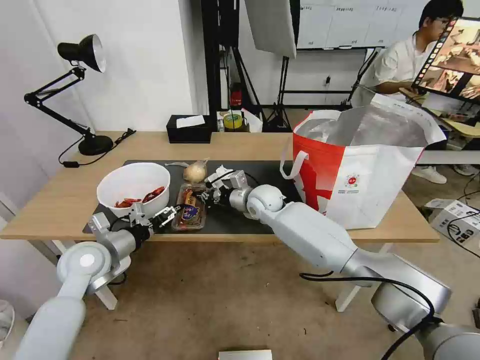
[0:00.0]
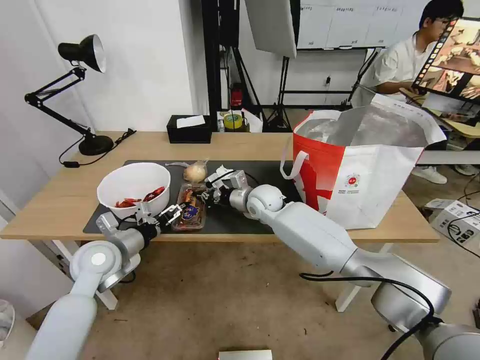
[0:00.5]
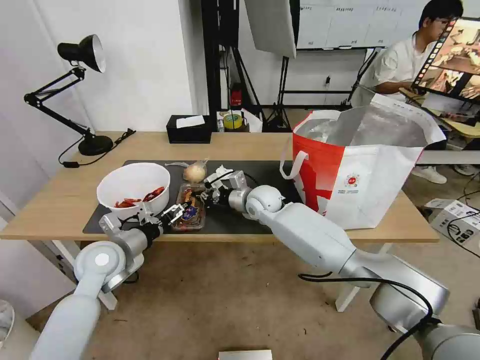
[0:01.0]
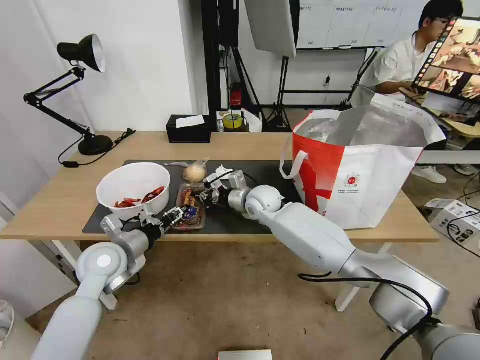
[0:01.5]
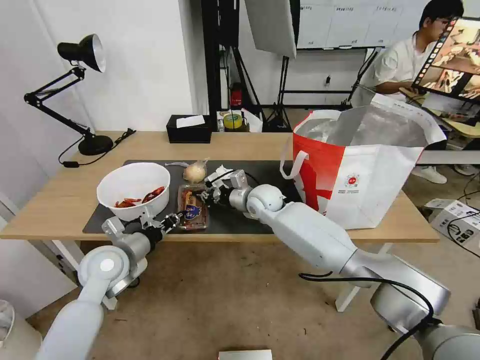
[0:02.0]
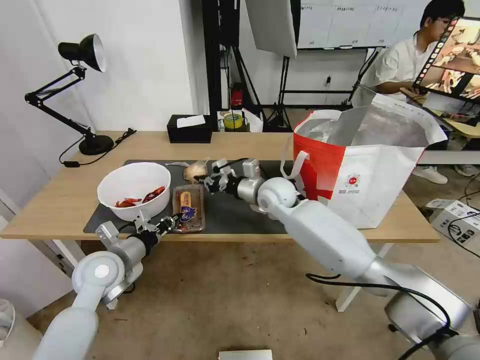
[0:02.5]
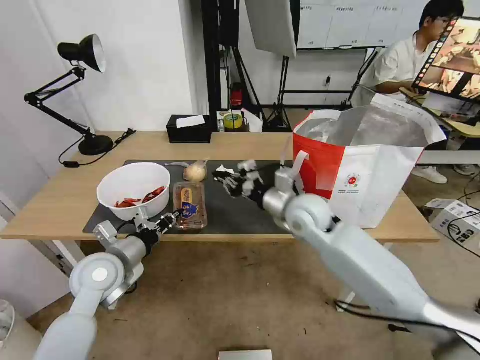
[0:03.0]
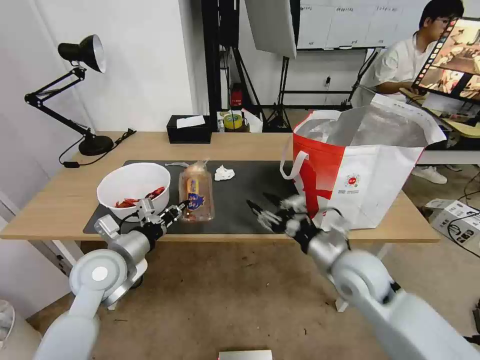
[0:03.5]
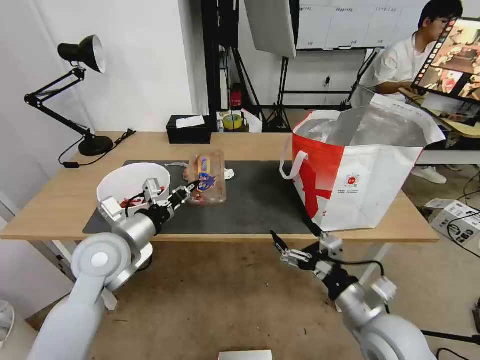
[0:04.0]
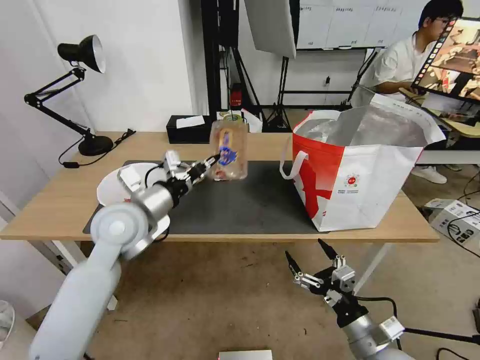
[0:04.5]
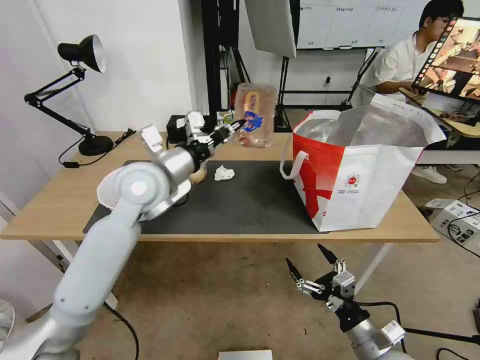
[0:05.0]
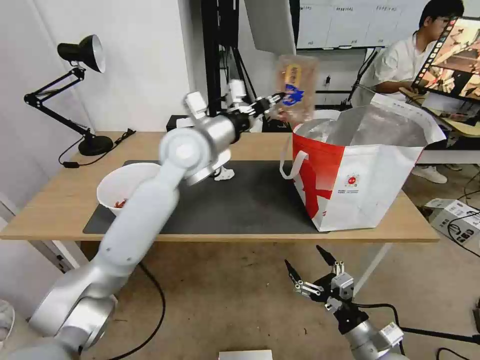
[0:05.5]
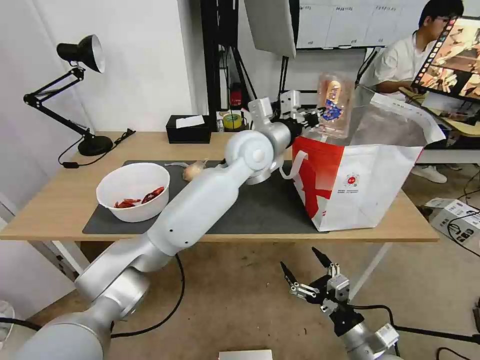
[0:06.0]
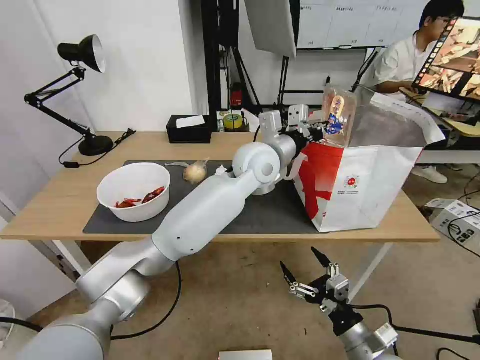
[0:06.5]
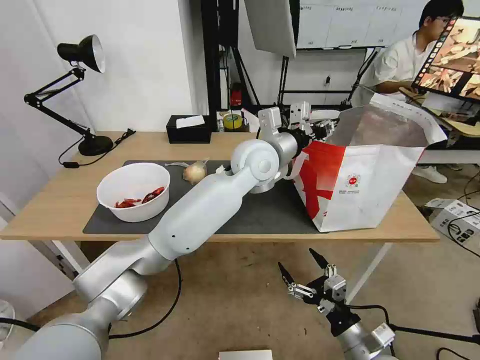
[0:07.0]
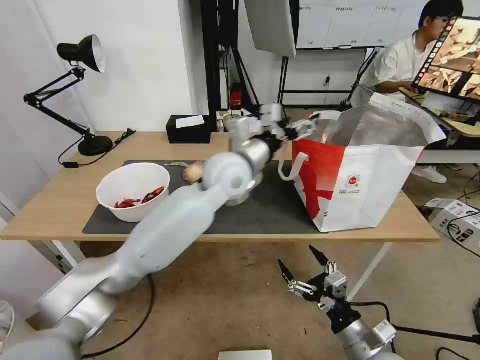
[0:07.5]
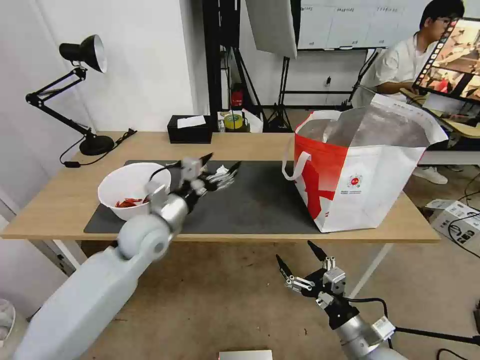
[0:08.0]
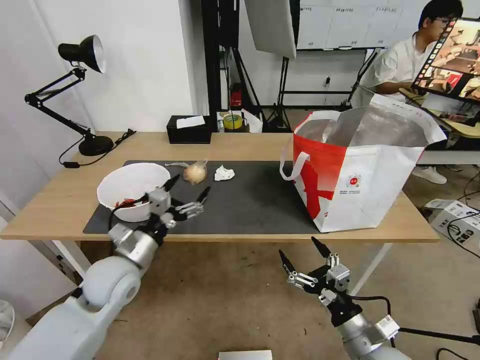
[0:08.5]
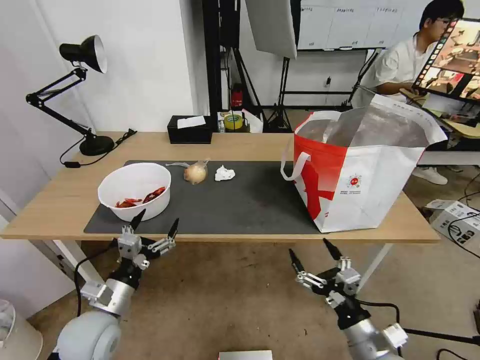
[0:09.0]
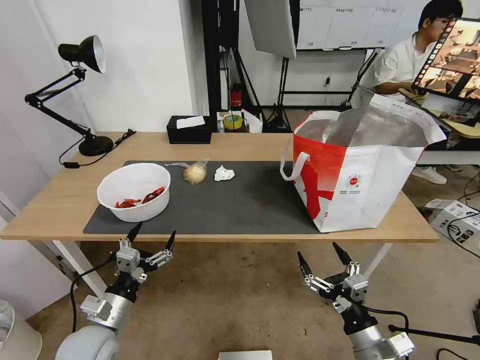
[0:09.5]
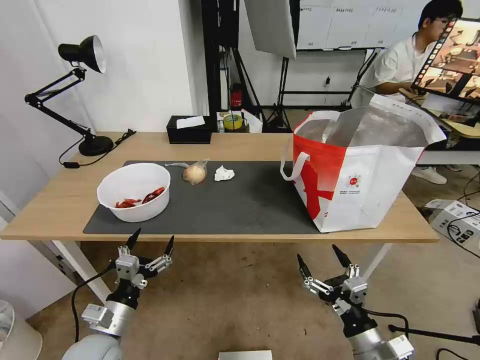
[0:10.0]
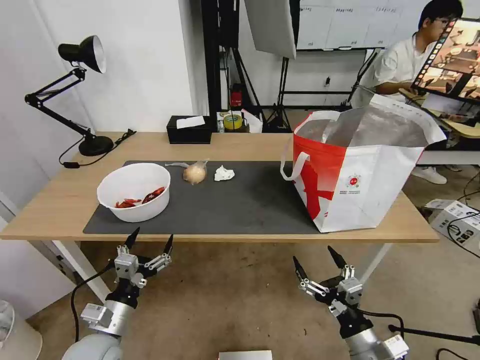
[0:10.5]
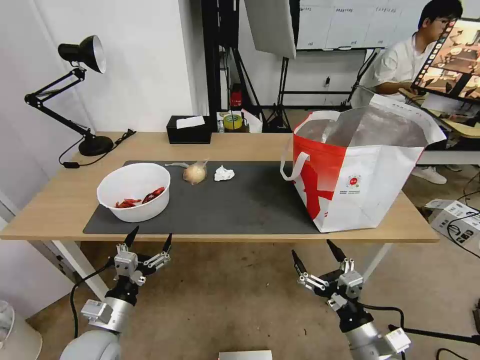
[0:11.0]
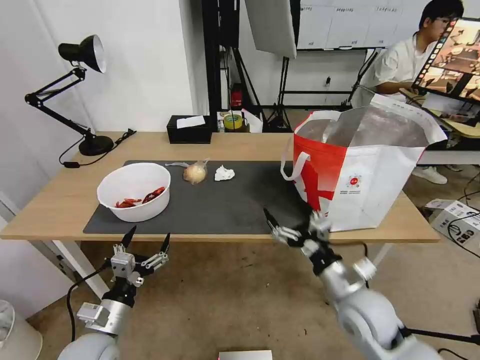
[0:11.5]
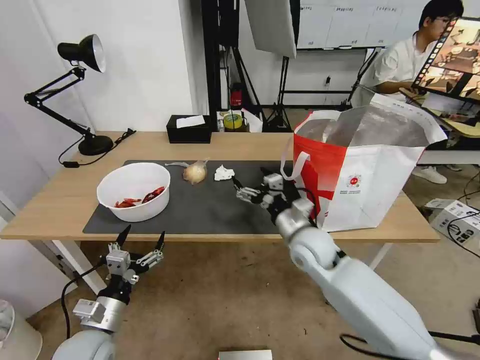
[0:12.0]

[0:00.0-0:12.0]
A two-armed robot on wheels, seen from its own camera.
Task of the whole recording: Pick up the trash from the table and place it into the takeout bag.
0:00.0 to 0:02.0: The left gripper closes.
0:02.0 to 0:04.0: The right gripper goes about 40 cm backward and to the right, and opens, while the left gripper is displaced upward by about 10 cm.
0:04.0 to 0:06.0: The right gripper heads downward, covering about 10 cm. Meanwhile the left gripper is displaced to the right, forward and upward by roughly 35 cm.
0:06.0 to 0:08.0: The left gripper is displaced to the left, downward and backward by roughly 30 cm, and opens up.
0:08.0 to 0:10.0: The left gripper goes about 25 cm backward, downward and to the left.
0:10.0 to 0:12.0: The right gripper heads forward and to the left, covering some 25 cm.

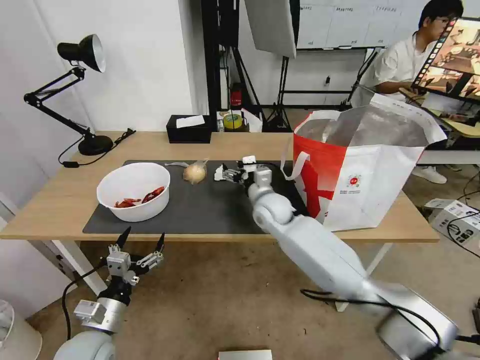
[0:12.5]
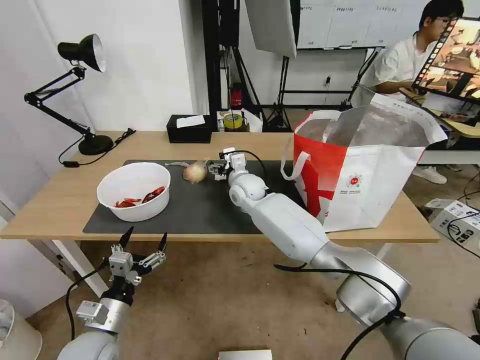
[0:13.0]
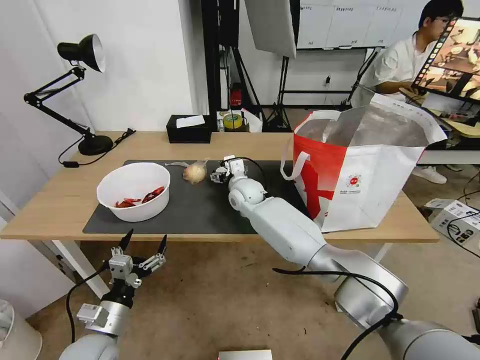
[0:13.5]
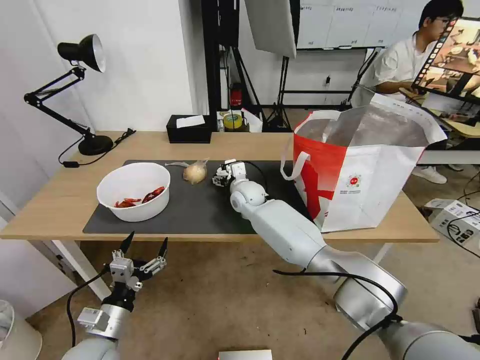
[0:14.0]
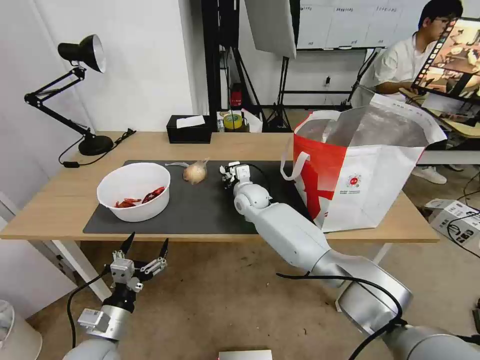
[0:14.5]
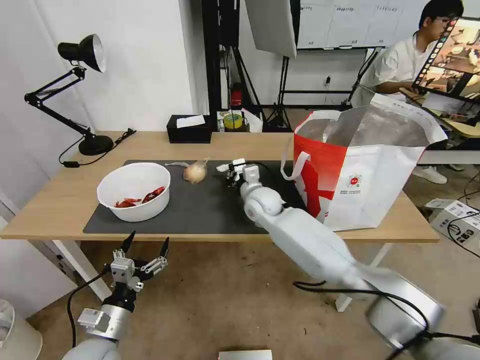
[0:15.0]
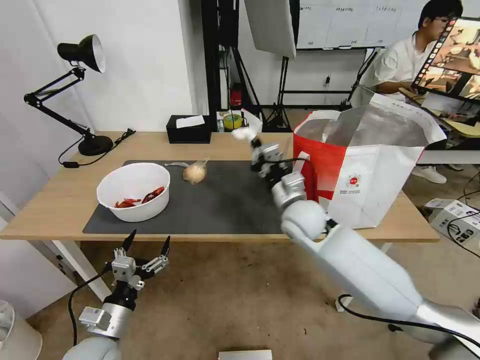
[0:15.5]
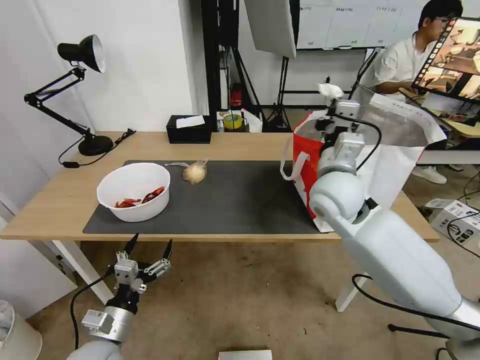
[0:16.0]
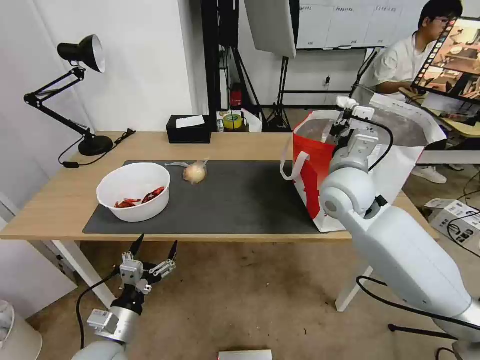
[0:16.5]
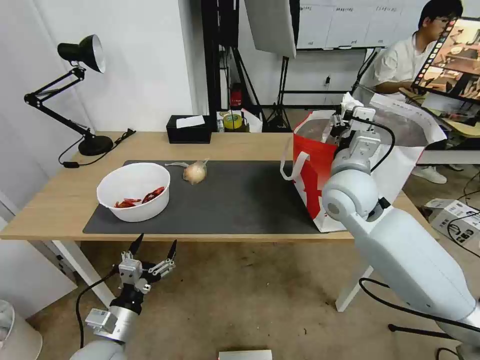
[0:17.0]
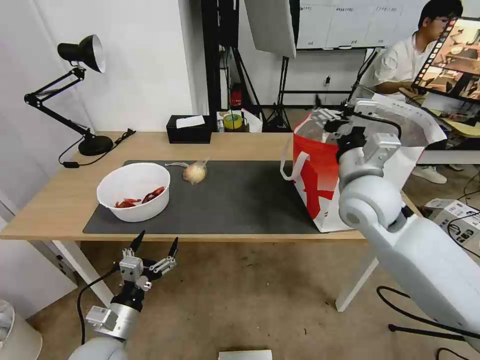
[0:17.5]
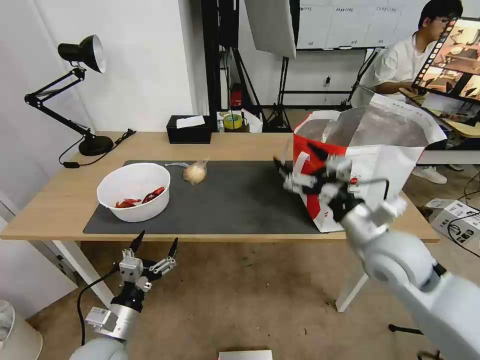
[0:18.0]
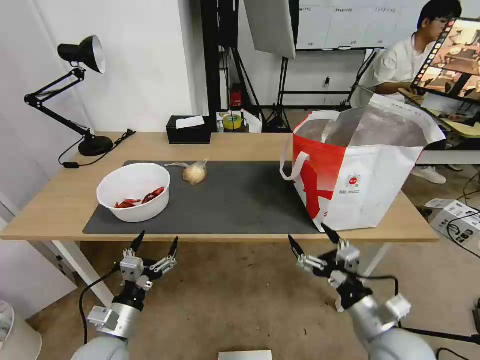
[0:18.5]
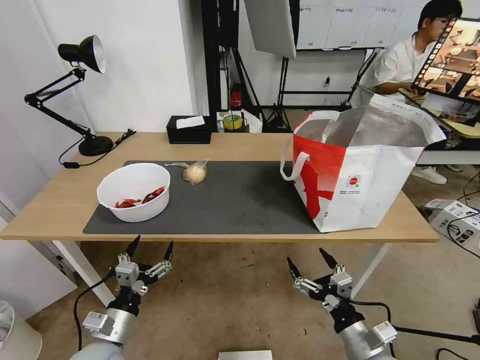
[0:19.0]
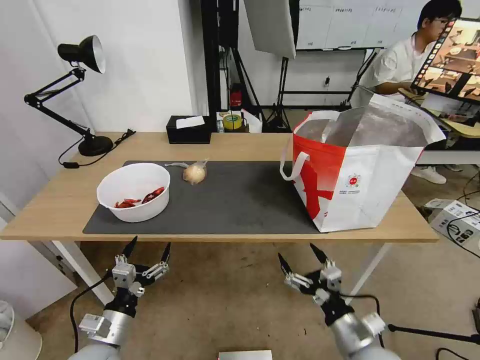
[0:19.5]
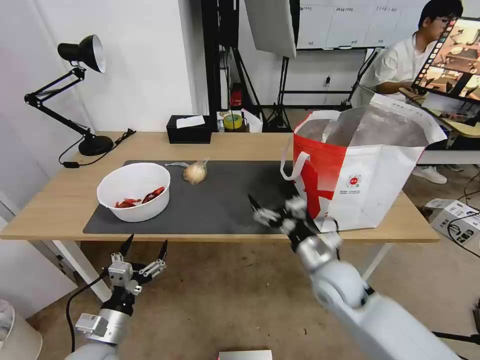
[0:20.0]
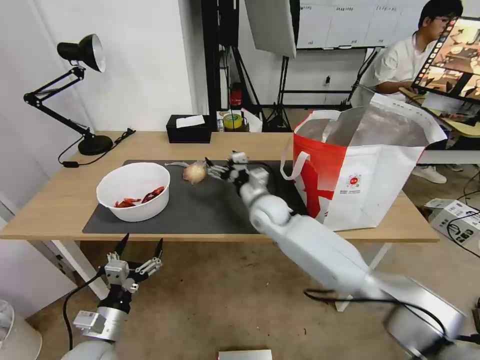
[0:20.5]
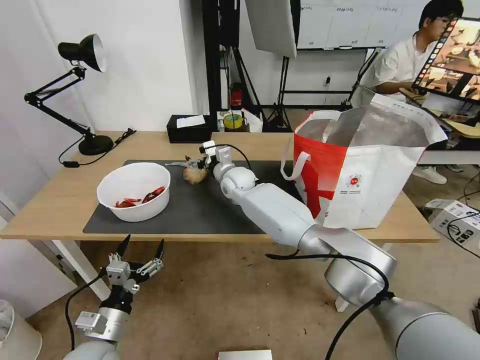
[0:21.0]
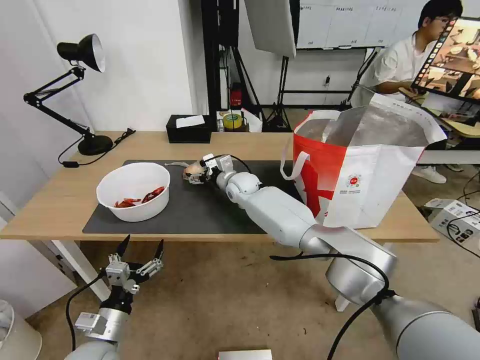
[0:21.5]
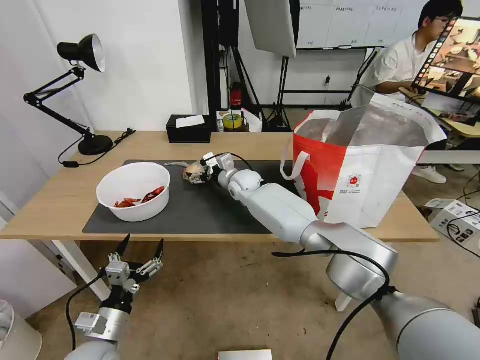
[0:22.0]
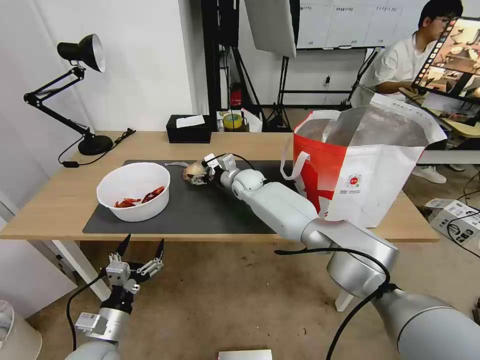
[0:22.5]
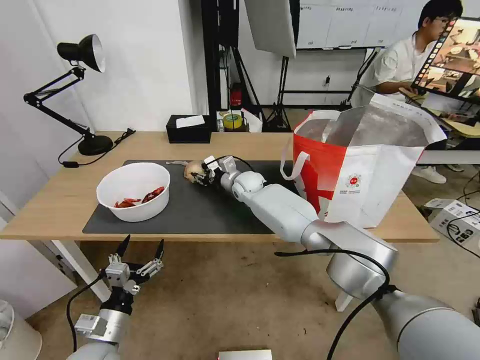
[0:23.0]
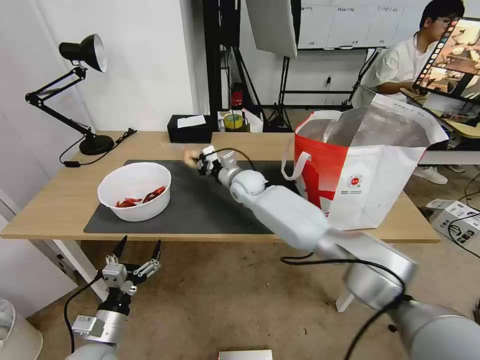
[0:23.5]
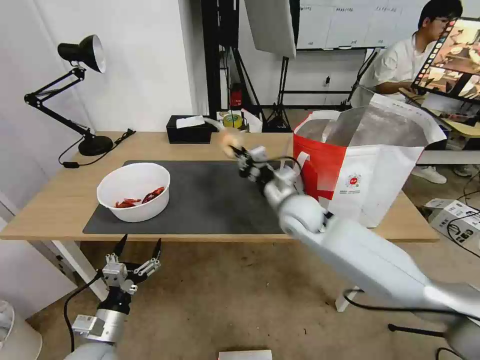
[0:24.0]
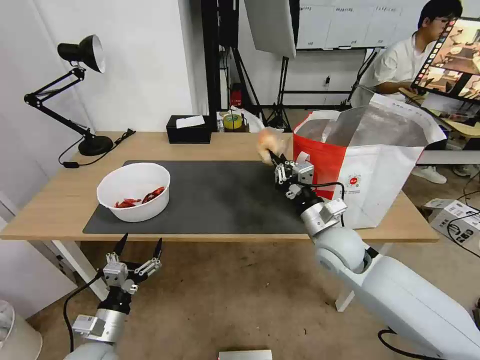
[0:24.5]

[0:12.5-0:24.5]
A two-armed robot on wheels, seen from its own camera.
Task of the whole recording: Pick up the trash from the table and place it into the takeout bag.
0:12.5 to 0:14.5: The right gripper is displaced forward and to the left by about 10 cm, and closes its fingers.
0:14.5 to 0:16.5: The right gripper travels upward, to the right and backward by roughly 25 cm.
0:16.5 to 0:18.5: The right gripper travels backward and downward by roughly 30 cm, and opens.
0:18.5 to 0:20.5: The right gripper is displaced forward and to the left by some 35 cm.
0:20.5 to 0:22.5: The right gripper moves forward, about 10 cm.
0:22.5 to 0:24.5: The right gripper shifts roughly 30 cm backward and to the right, and closes up.

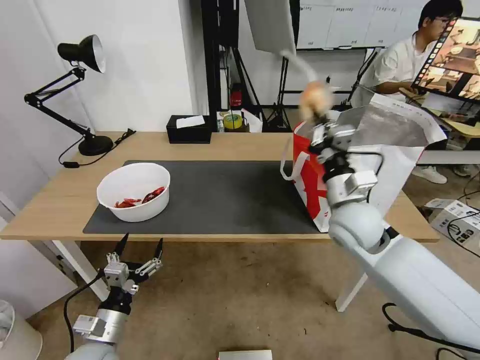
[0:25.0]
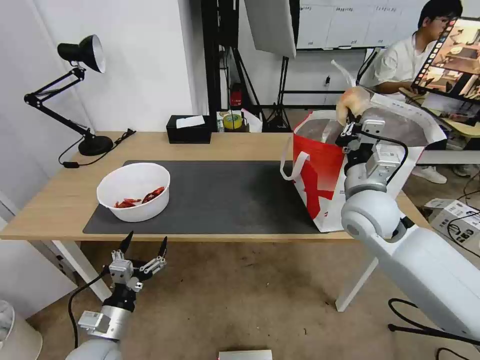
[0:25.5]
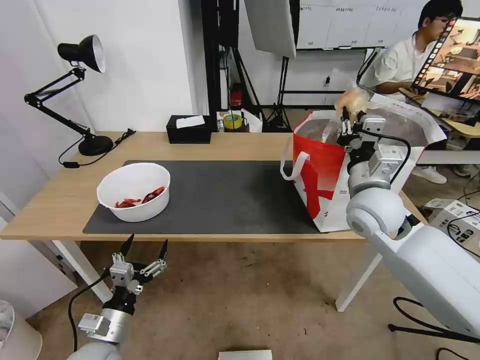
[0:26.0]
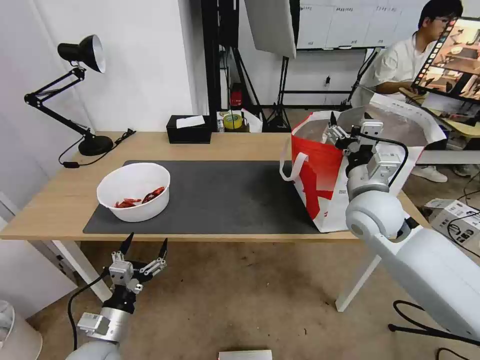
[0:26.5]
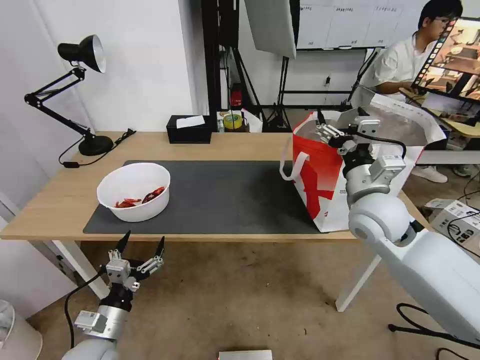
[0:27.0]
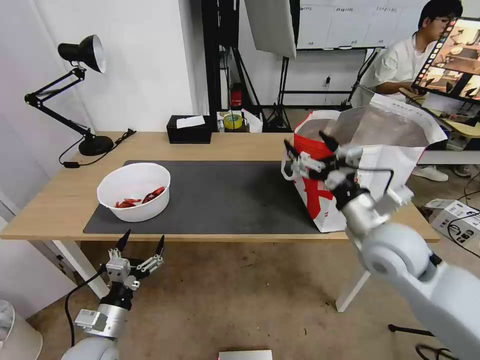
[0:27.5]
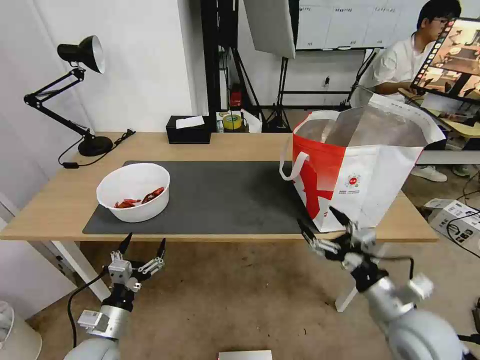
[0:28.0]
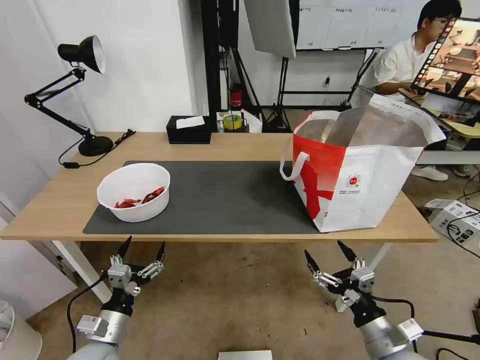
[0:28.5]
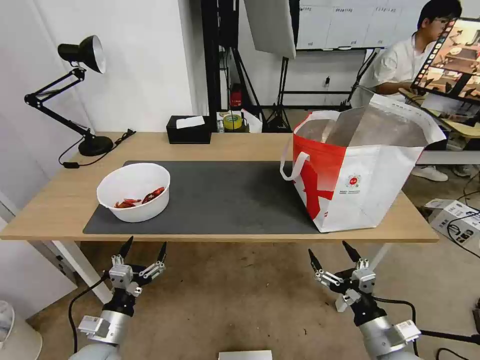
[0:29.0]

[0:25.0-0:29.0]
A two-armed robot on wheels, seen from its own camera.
Task of the whole recording: Pick up the trash from the table and place it into the takeout bag.
0:25.0 to 0:27.0: The right gripper opens.
0:27.0 to 0:29.0: The right gripper goes roughly 30 cm backward and downward.
